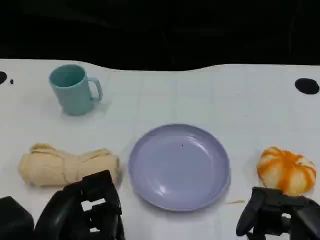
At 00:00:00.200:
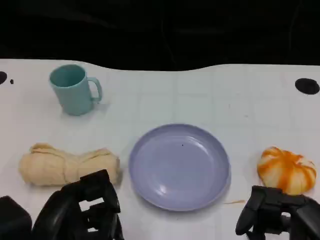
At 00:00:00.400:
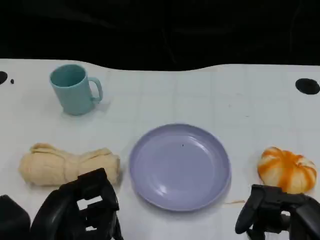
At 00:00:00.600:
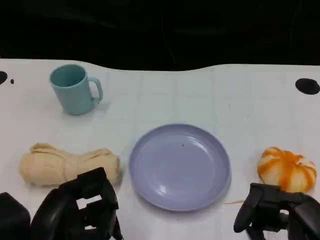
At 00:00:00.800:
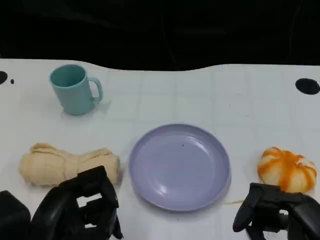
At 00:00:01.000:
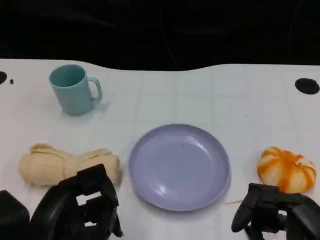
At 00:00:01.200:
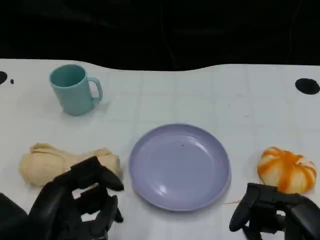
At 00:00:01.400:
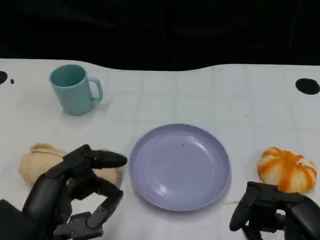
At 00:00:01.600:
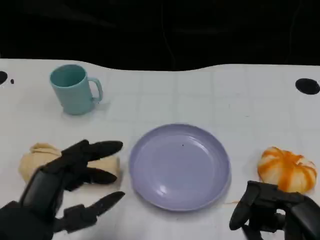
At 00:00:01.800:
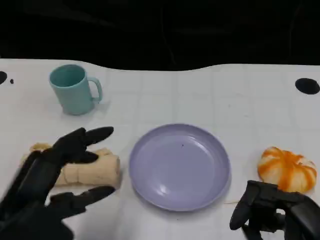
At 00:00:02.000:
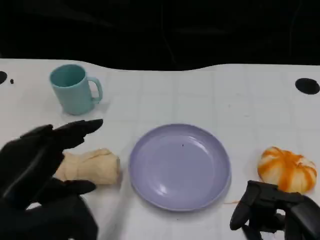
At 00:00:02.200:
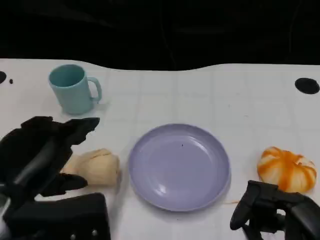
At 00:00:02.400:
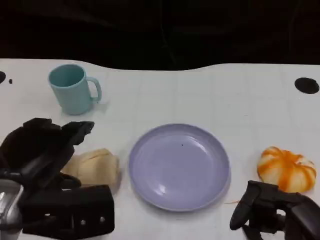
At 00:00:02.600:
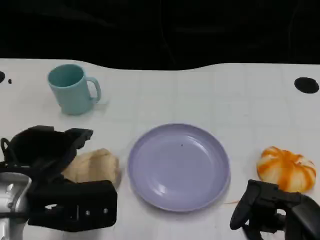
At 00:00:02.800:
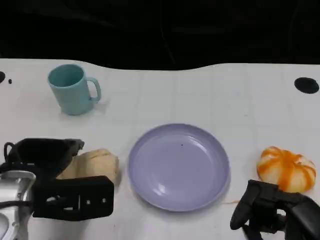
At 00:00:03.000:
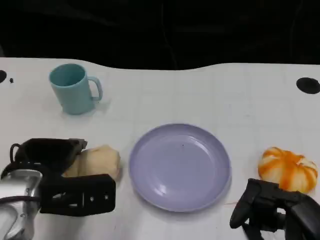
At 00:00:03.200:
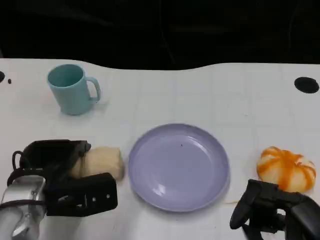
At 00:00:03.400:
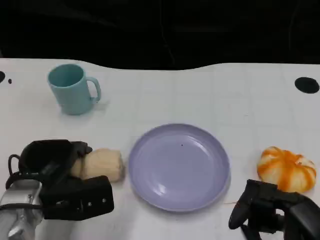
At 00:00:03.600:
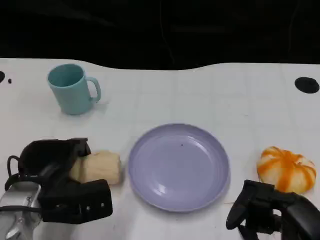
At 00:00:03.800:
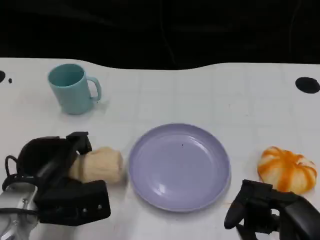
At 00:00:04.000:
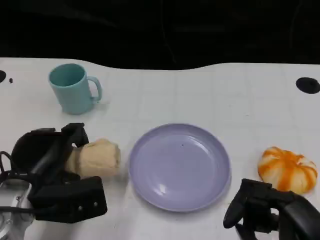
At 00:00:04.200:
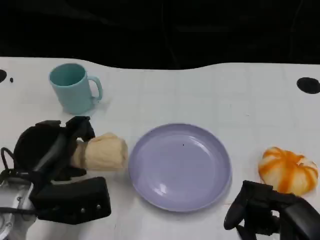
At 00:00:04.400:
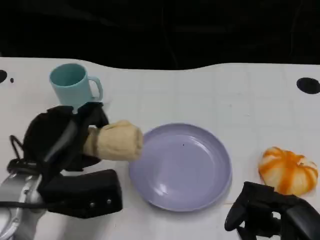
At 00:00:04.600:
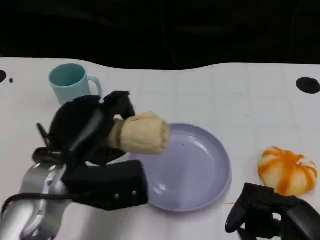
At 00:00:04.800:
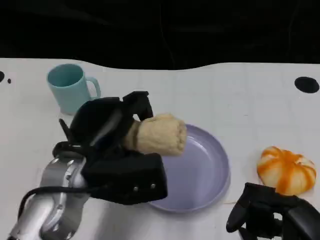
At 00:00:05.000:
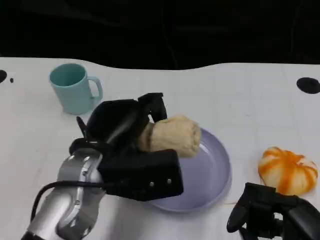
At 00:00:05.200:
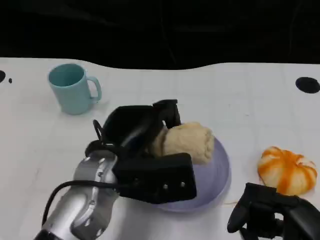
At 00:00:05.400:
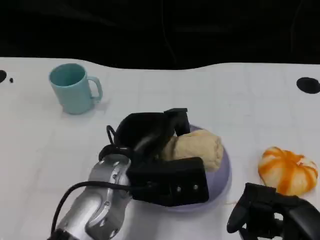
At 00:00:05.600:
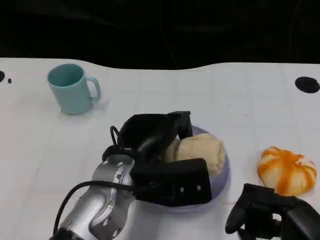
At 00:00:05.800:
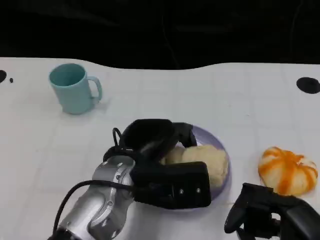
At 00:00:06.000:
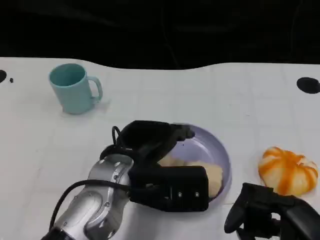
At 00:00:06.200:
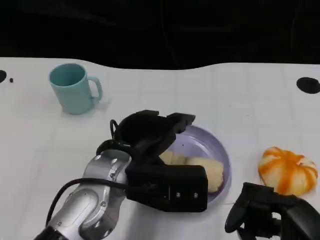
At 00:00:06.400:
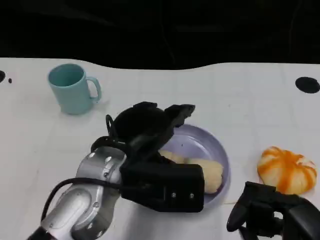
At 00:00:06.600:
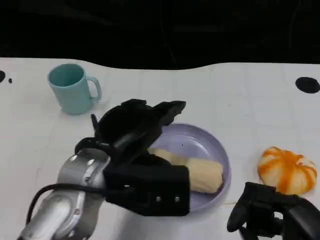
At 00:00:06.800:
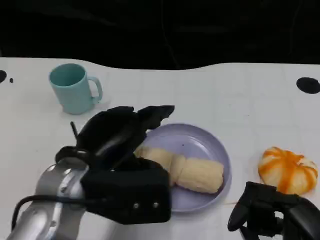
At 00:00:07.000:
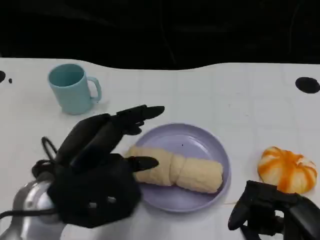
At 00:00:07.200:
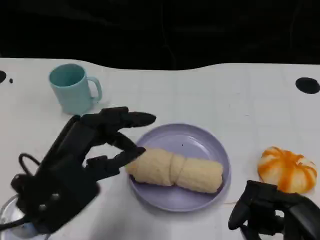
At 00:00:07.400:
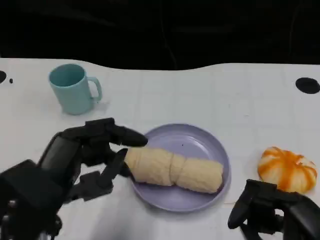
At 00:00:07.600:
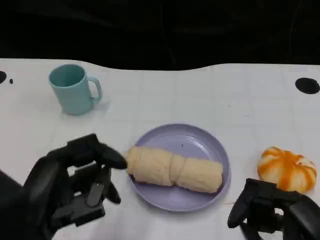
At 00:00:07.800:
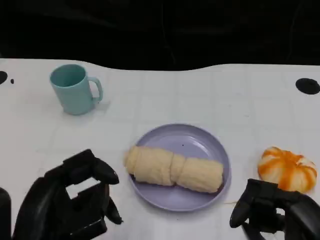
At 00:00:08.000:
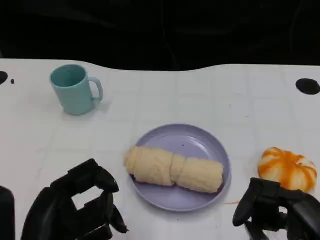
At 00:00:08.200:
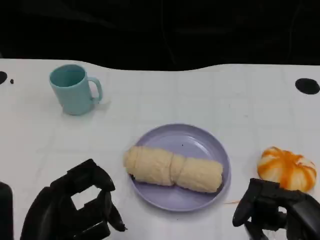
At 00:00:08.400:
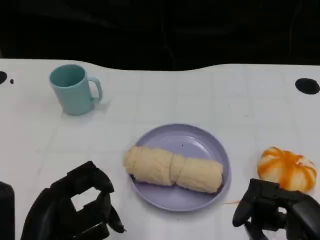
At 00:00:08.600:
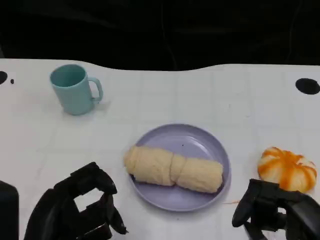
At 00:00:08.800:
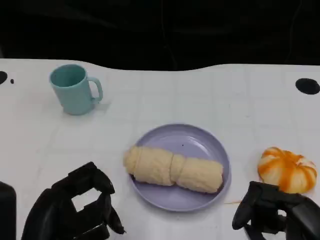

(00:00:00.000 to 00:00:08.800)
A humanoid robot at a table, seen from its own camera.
Task of the whole recording: Grasp the towel on the left side of the plate with the left hand and place it into the plate.
00:00:00.000 - 00:00:01.400: The hands make only small movements.
00:00:01.400 - 00:00:03.000: The left hand is displaced forward by some 10 cm.
00:00:04.400 - 00:00:05.800: The left hand heads to the right, covering some 10 cm.
00:00:05.800 - 00:00:07.400: The left hand shifts approximately 15 cm to the left and backward.

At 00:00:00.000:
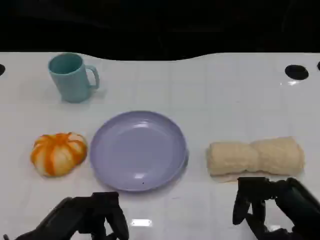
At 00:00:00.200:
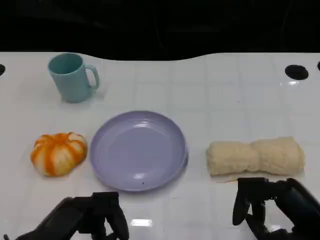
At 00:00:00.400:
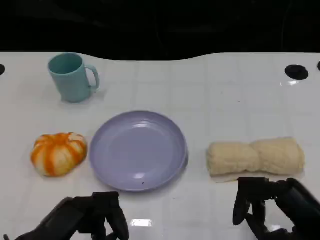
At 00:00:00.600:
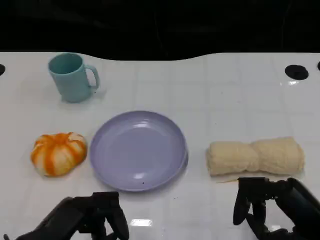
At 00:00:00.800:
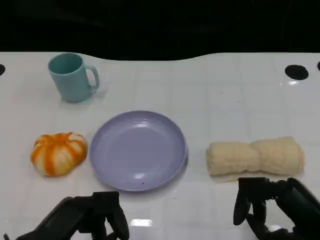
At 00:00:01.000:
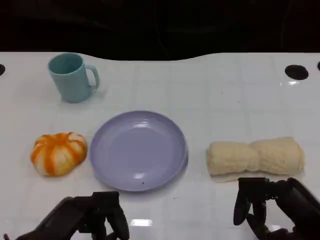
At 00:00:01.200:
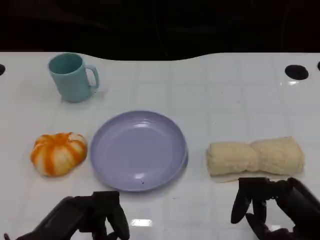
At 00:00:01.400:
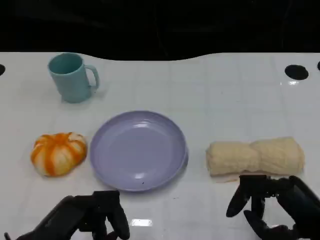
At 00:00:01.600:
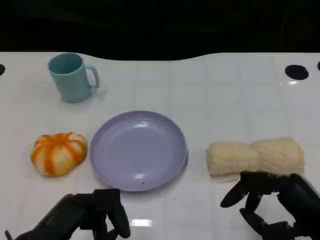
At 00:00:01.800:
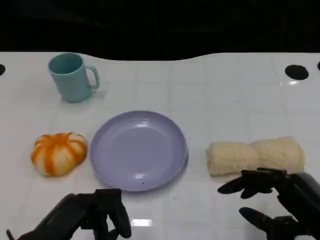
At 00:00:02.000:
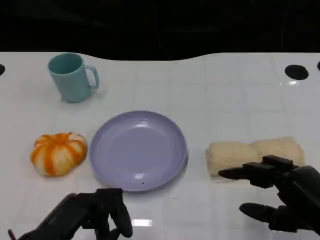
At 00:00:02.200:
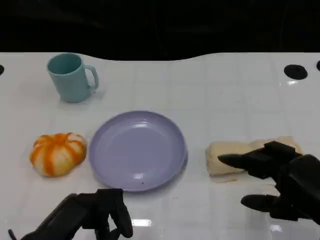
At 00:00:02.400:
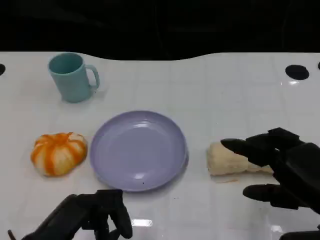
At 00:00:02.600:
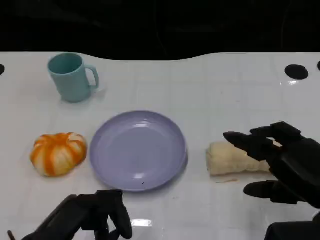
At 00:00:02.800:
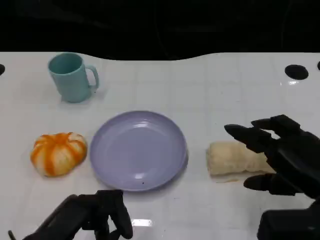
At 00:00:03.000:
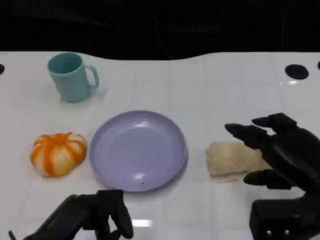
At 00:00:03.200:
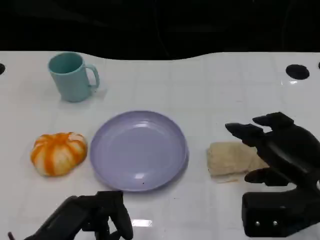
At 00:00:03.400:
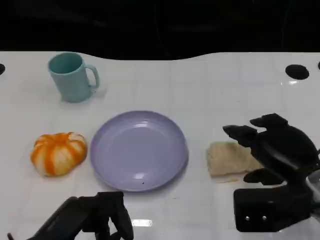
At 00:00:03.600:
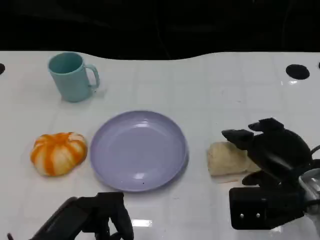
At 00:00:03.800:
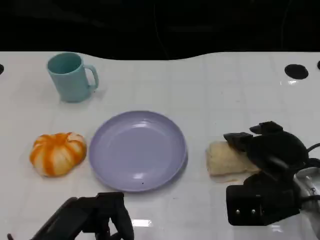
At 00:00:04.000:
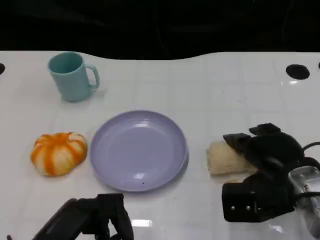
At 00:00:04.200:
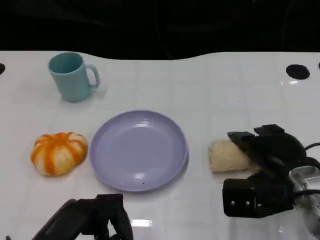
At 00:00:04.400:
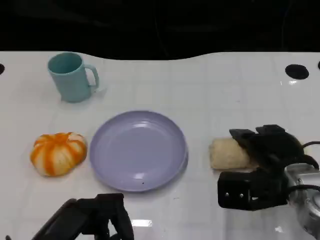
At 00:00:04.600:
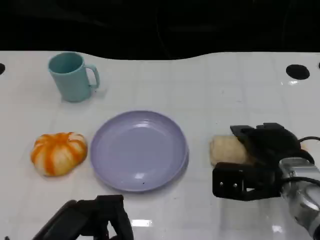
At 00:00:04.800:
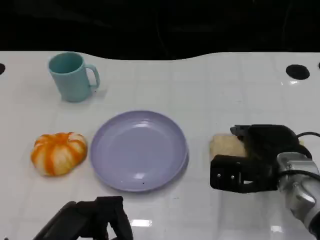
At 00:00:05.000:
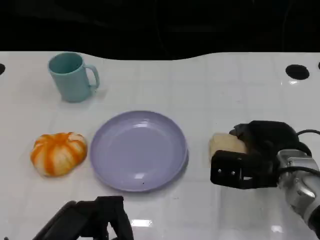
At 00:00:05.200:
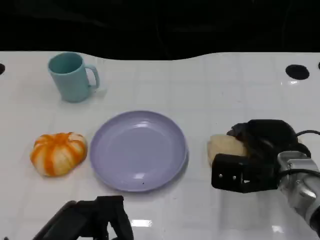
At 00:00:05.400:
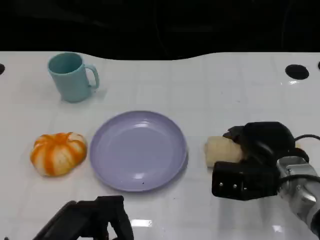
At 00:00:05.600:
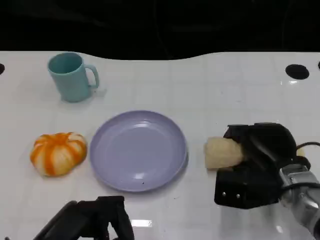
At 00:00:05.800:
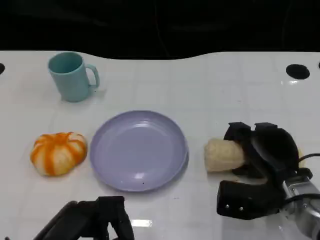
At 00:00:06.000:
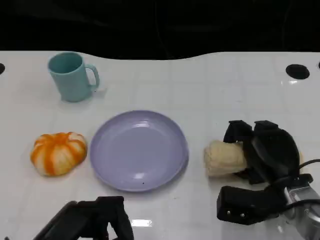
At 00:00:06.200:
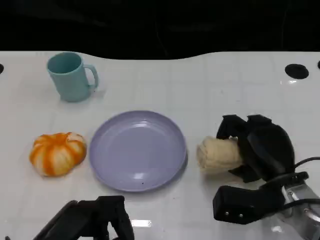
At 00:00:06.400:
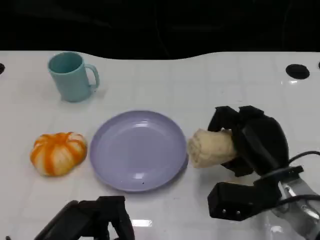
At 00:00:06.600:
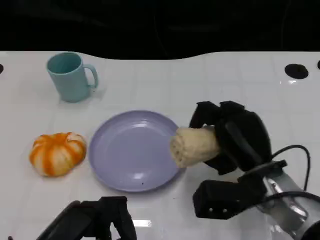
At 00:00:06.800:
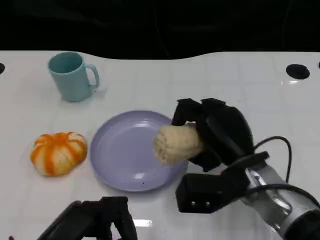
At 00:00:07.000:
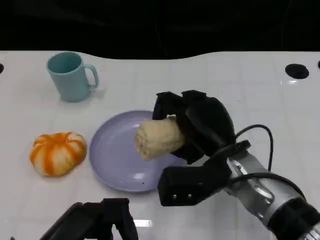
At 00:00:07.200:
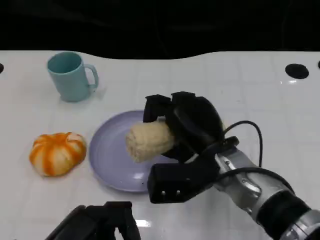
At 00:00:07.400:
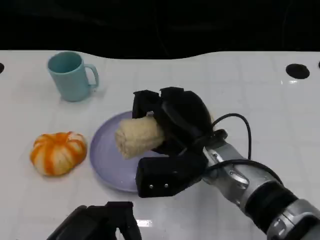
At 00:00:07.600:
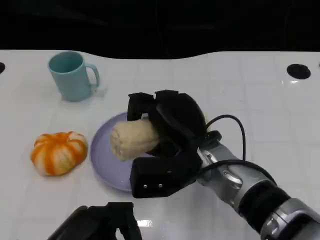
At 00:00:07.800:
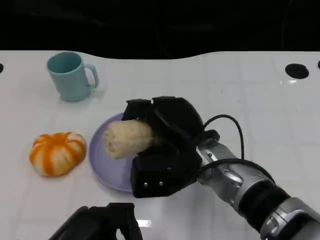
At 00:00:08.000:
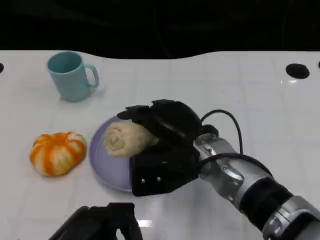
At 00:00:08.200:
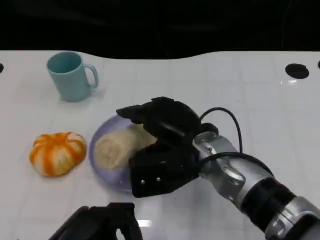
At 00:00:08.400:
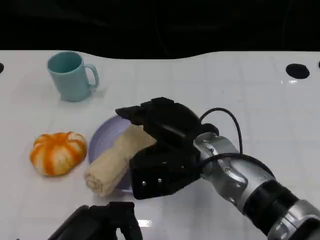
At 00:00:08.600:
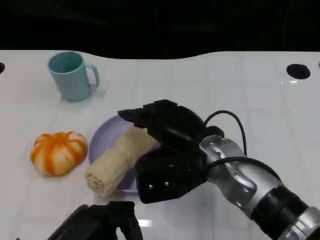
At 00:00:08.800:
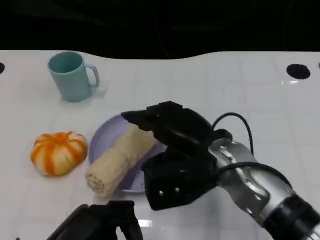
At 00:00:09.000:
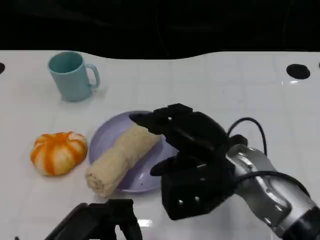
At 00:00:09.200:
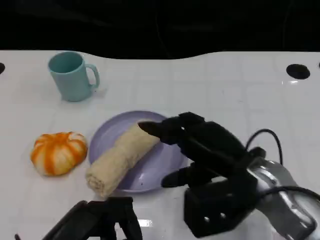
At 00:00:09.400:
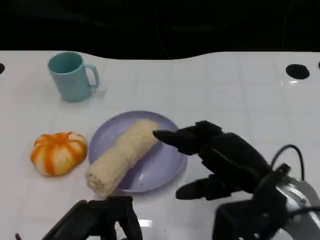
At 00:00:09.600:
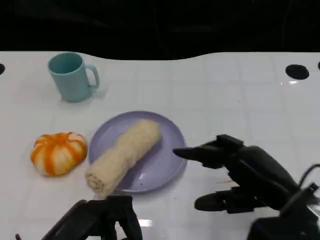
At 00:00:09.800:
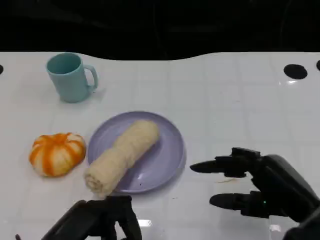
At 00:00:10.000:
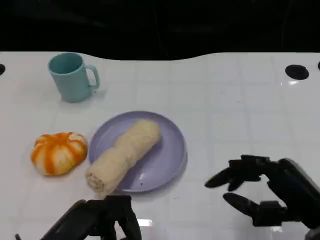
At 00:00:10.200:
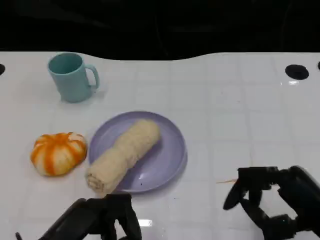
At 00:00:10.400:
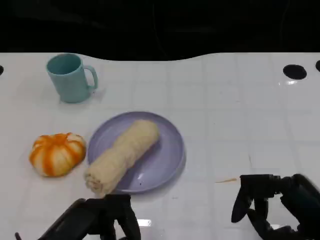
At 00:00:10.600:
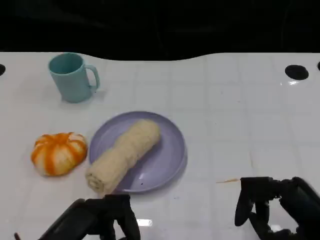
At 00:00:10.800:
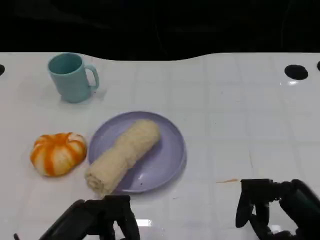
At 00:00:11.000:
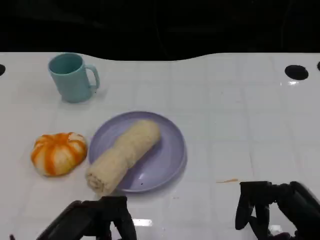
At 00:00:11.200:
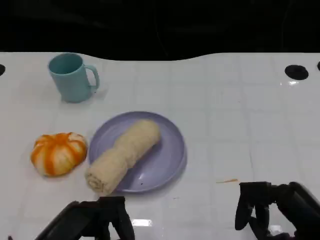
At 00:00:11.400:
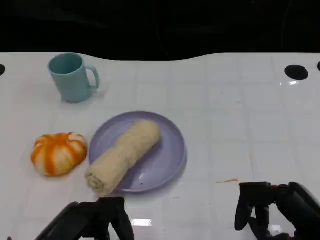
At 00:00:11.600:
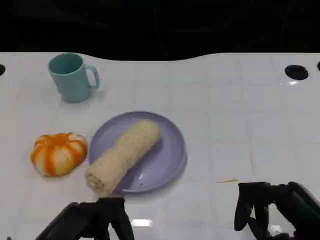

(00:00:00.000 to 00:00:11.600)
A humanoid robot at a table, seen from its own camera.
Task of the whole recording: Grasp the towel on the left side of the plate with the left hand and place it into the plate.
00:00:00.000 - 00:00:01.400: Both hands stay put.
00:00:01.400 - 00:00:02.800: The right hand goes approximately 5 cm forward.
00:00:02.800 - 00:00:04.400: The right hand heads forward, covering some 5 cm.
00:00:05.800 - 00:00:07.200: The right hand shifts about 15 cm to the left and upward.
00:00:08.800 - 00:00:10.200: The right hand shifts some 20 cm to the right and backward.
00:00:10.200 - 00:00:11.600: The hands move only a little.
